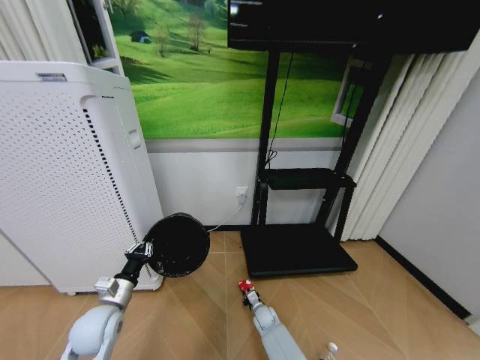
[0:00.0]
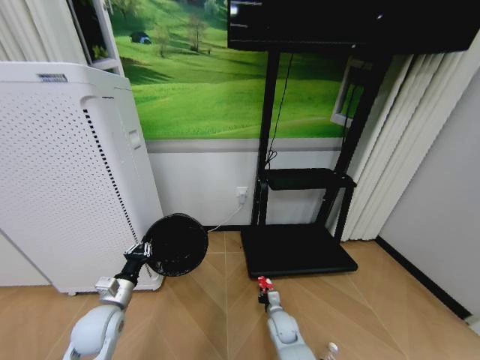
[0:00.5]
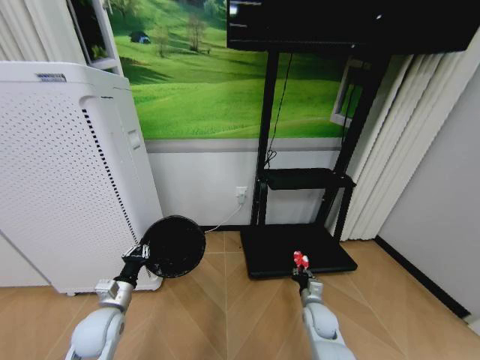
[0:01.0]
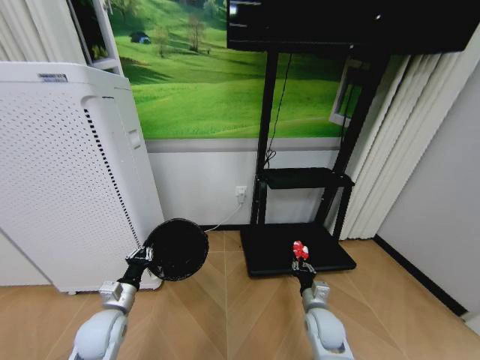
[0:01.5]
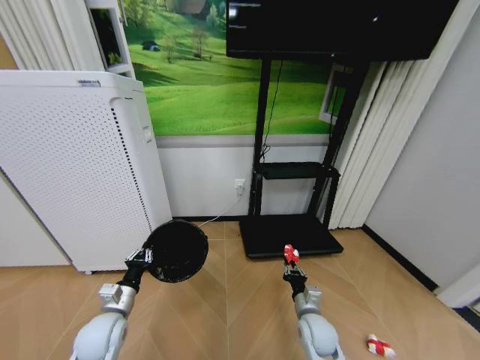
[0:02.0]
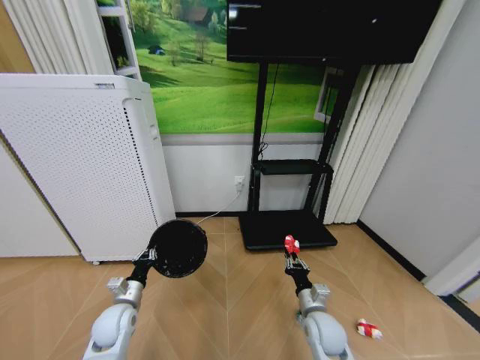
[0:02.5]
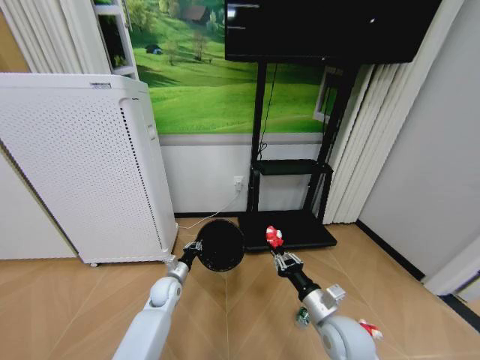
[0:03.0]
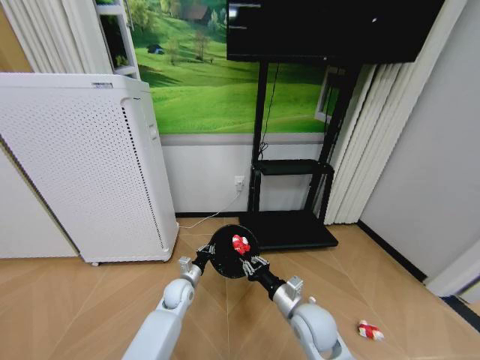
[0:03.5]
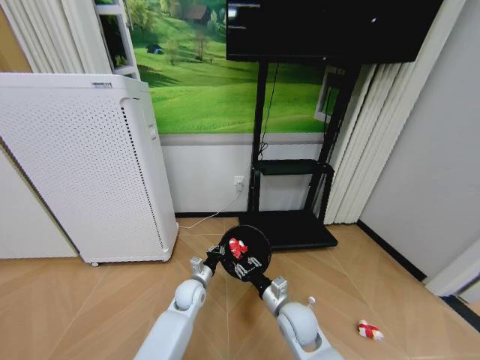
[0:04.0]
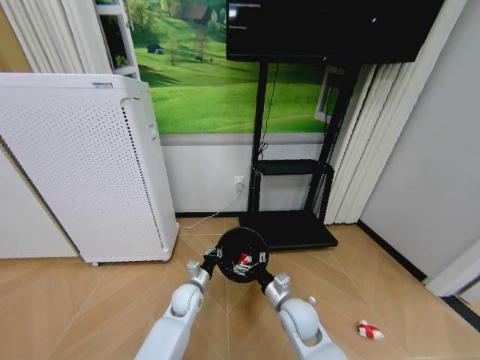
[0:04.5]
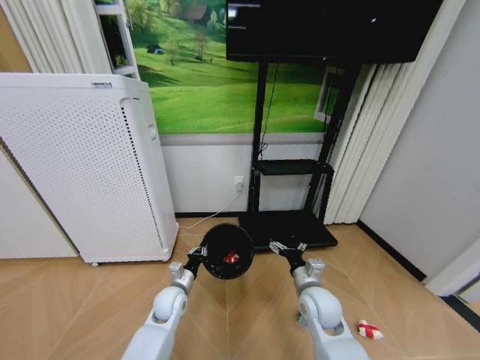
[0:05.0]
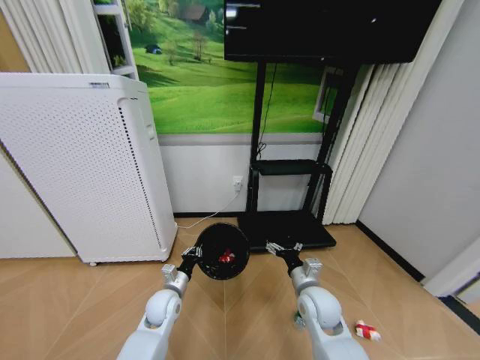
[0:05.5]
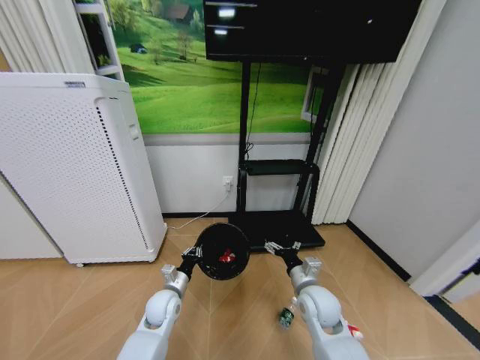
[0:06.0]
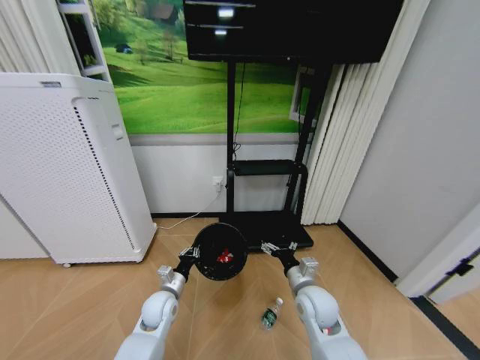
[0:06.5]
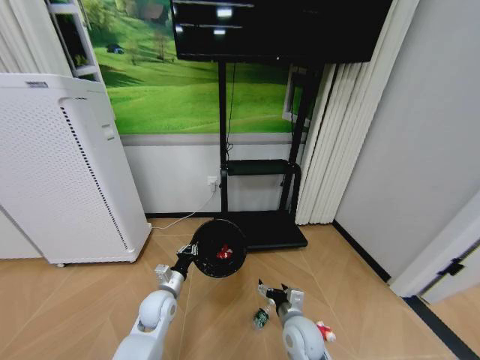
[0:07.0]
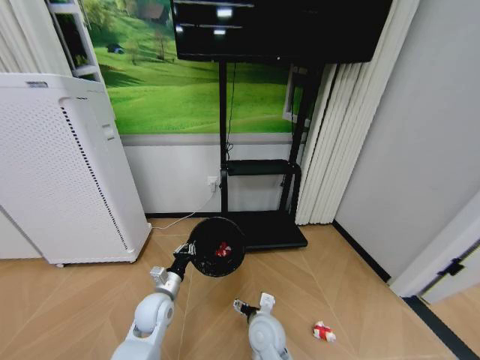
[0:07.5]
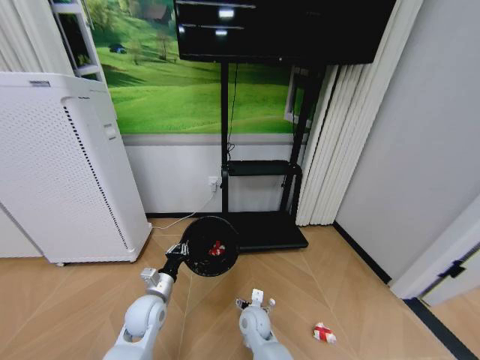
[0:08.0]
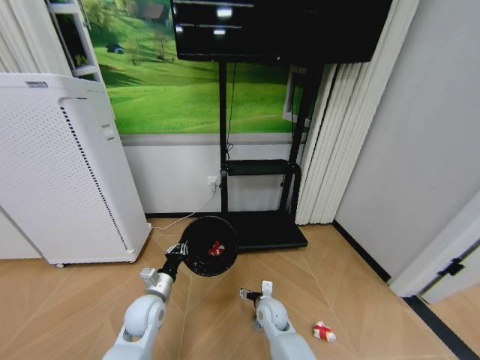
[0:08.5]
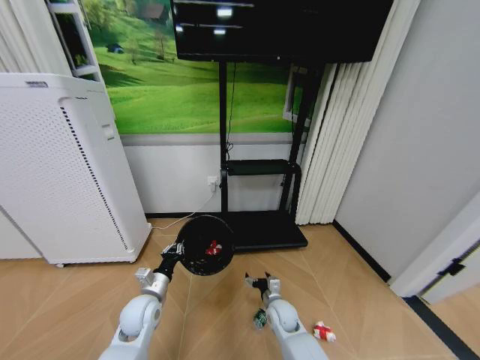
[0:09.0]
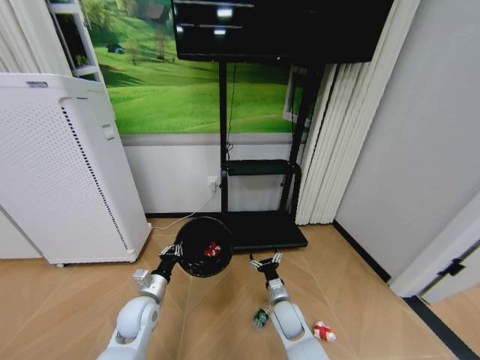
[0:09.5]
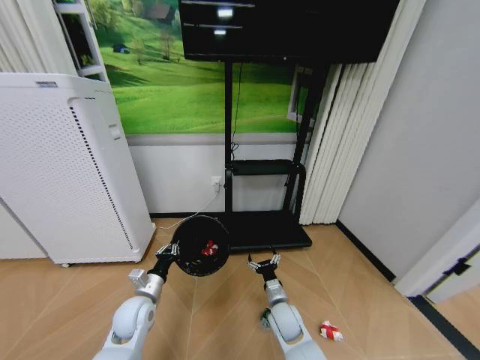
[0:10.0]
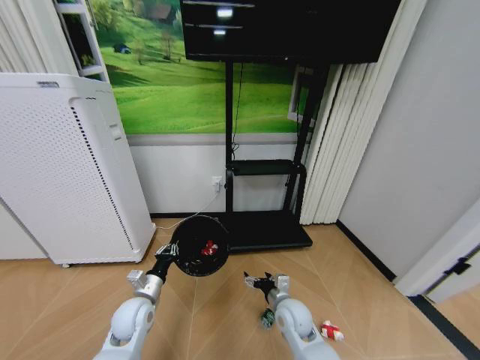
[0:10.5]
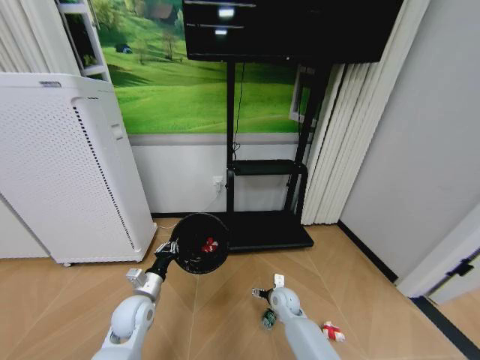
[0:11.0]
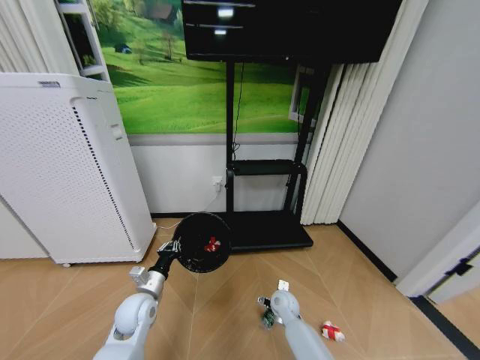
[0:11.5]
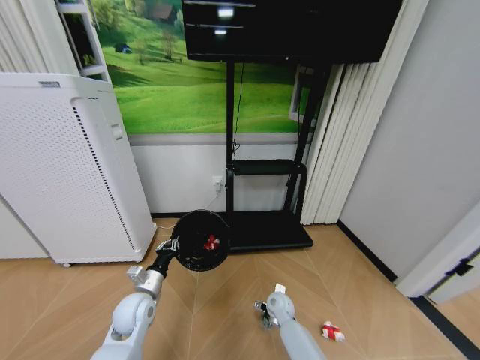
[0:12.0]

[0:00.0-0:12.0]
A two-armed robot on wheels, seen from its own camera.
Task of the whole recording: Pick up the trash bin and place the garbage on the floor into it.
0:00.0 to 0:02.0: The right gripper travels upward, backward and to the right by approximately 25 cm.
0:02.0 to 0:04.0: The left gripper moves to the right, forward and downward, some 25 cm. The right gripper travels to the left and upward by roughly 10 cm.
0:04.0 to 0:06.0: The left gripper heads to the left, covering approximately 5 cm. The right gripper shifts approximately 5 cm to the right and upward, and opens up.
0:06.0 to 0:08.0: The right gripper travels to the left and downward by some 20 cm, while the left gripper shifts by about 5 cm.
0:08.0 to 0:10.0: The right gripper shifts approximately 10 cm to the right.
0:10.0 to 0:12.0: The right gripper moves forward and downward, about 10 cm.

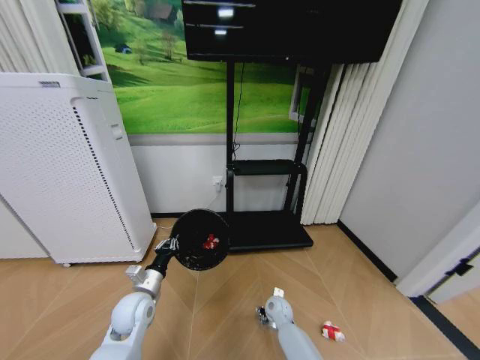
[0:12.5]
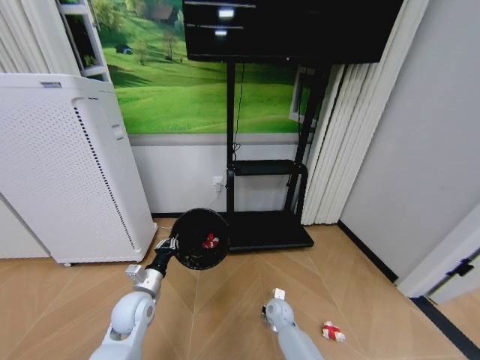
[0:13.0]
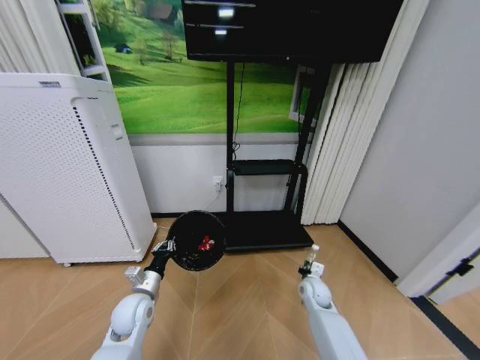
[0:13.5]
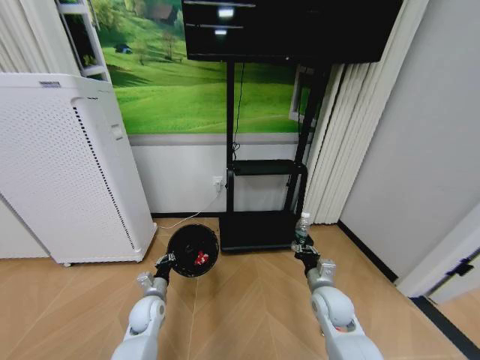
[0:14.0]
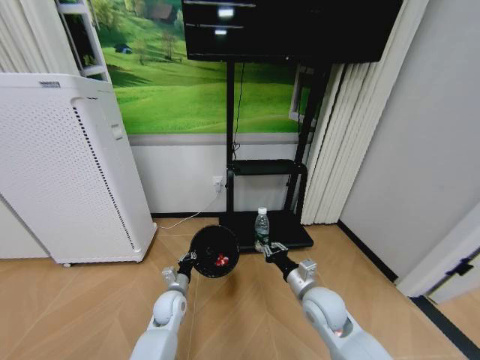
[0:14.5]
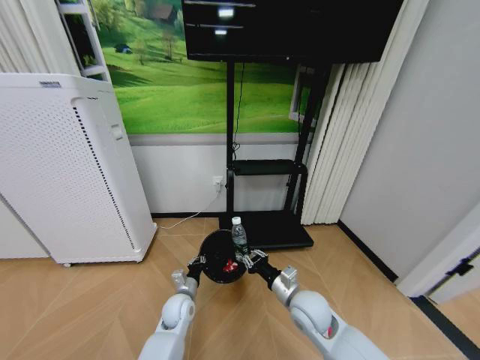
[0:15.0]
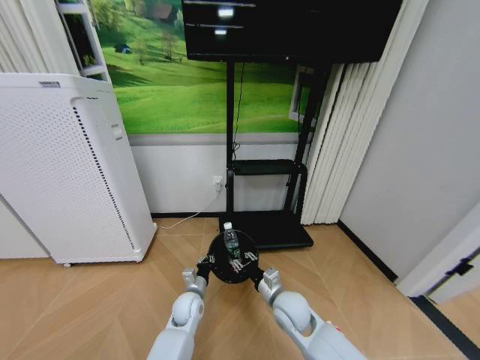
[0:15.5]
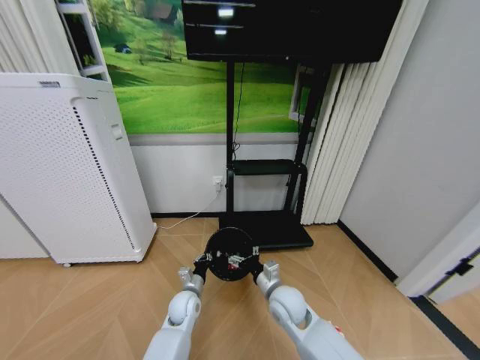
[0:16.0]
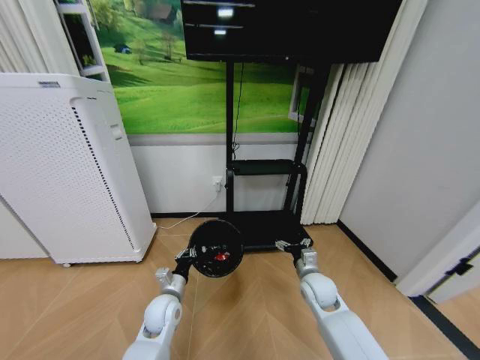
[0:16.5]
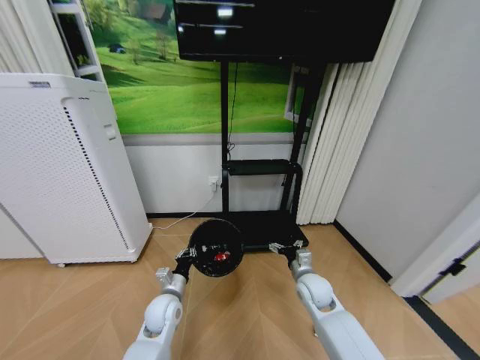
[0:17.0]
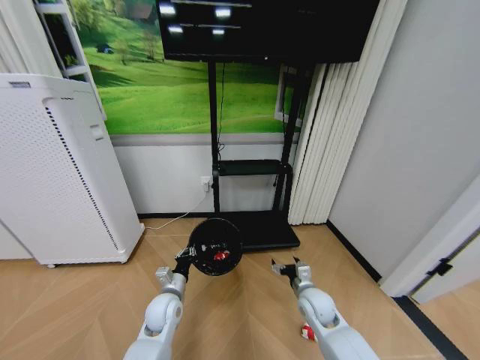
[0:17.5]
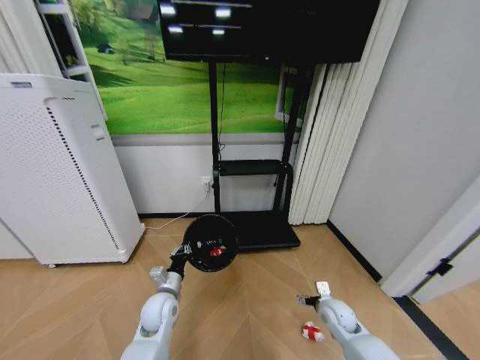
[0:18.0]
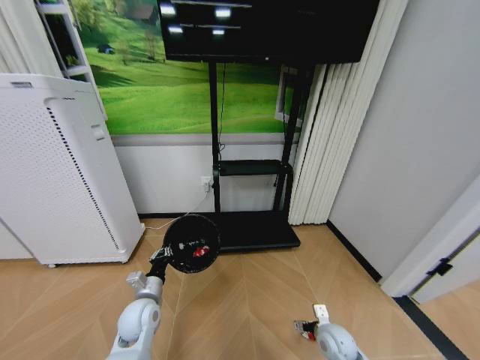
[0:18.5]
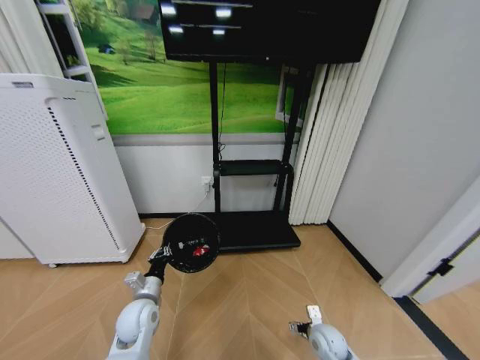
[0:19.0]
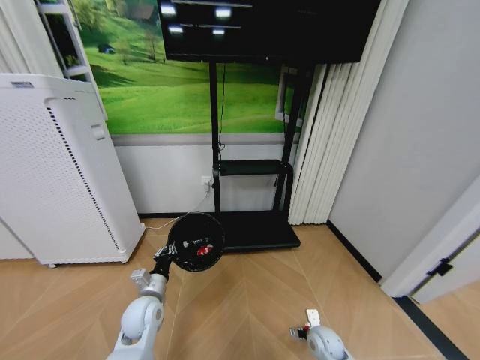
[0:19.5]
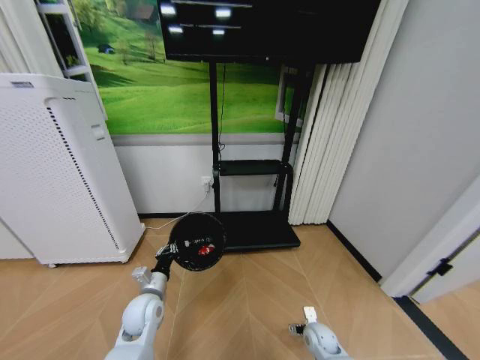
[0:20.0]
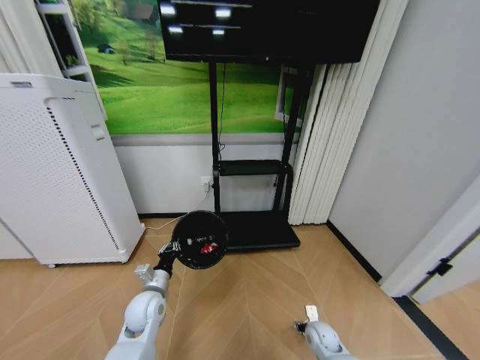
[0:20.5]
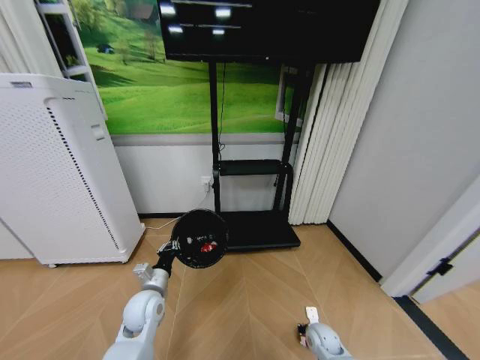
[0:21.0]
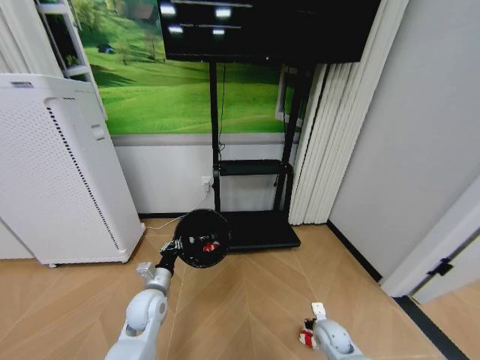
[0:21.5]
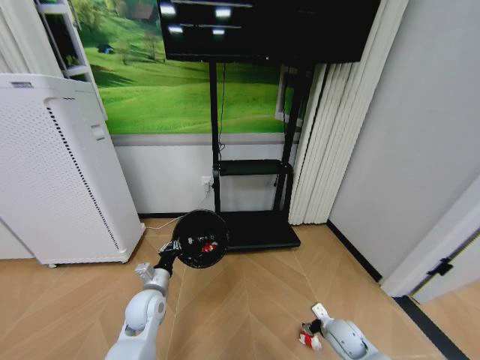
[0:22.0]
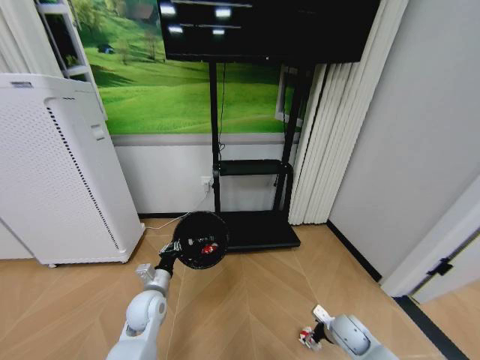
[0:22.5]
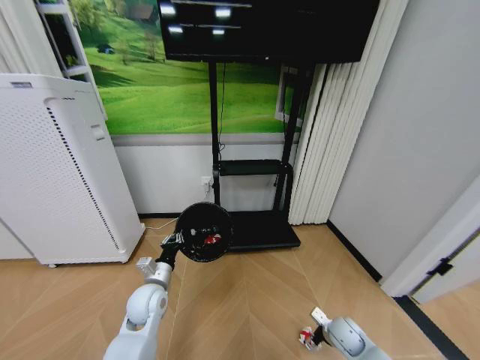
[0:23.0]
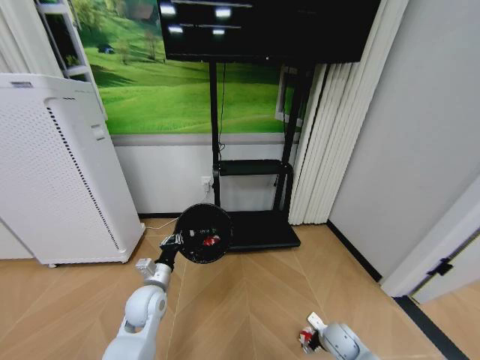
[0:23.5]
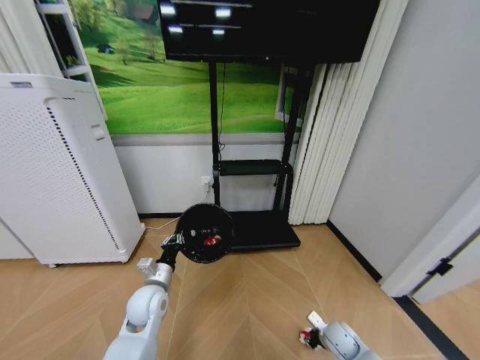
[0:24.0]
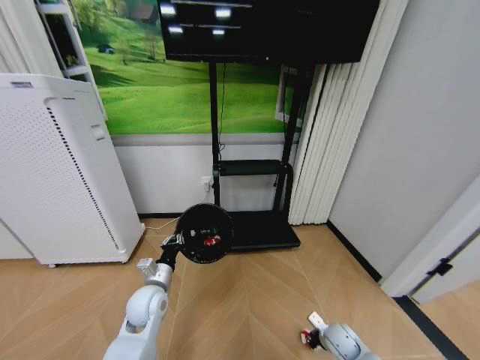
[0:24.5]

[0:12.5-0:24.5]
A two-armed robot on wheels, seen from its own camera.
Task of the whole recording: Pick up the trash bin and place the garbage on the floor into it.
0:12.5 to 0:14.5: The left gripper goes approximately 10 cm downward and to the right; the right gripper goes about 20 cm upward, and closes up.
0:14.5 to 0:16.5: The right gripper reaches some 10 cm to the left, then returns, and opens.
0:16.5 to 0:18.5: The right gripper goes some 20 cm downward, to the right and backward, while the left gripper is displaced to the left by roughly 5 cm.
0:18.5 to 0:20.5: The right gripper goes some 5 cm downward, and closes up.
0:20.5 to 0:22.5: The right gripper heads upward and to the right, covering some 10 cm, and opens up.
0:22.5 to 0:24.5: The right gripper closes.

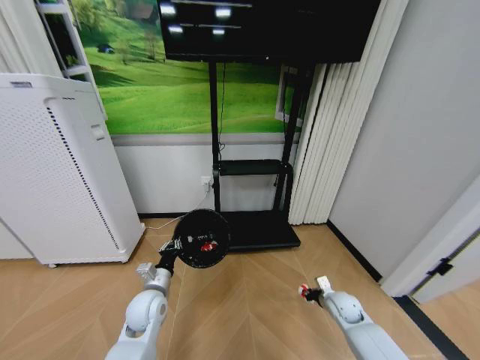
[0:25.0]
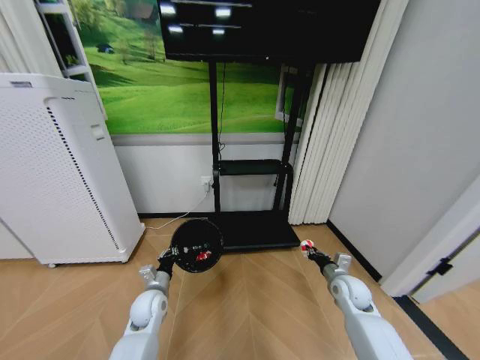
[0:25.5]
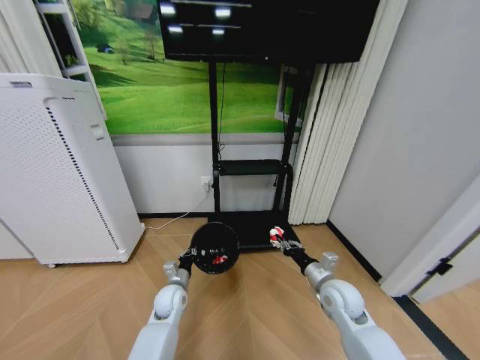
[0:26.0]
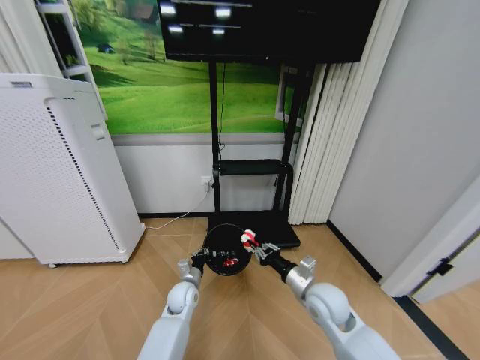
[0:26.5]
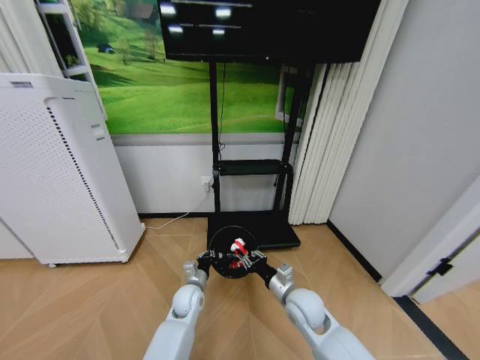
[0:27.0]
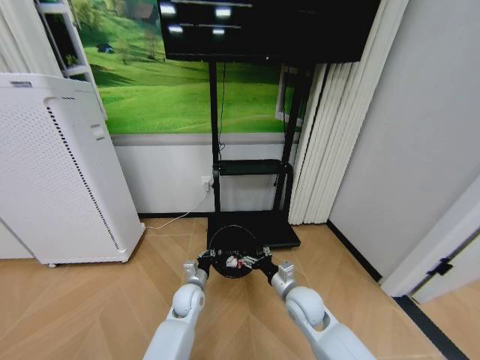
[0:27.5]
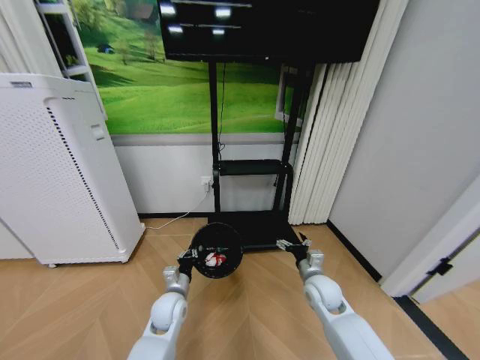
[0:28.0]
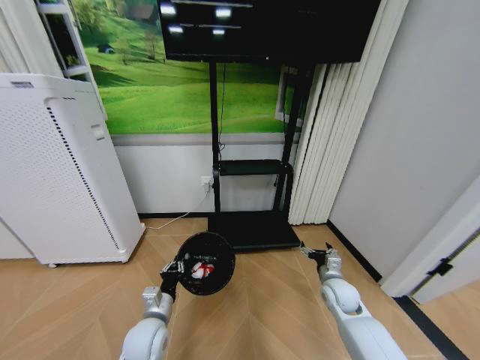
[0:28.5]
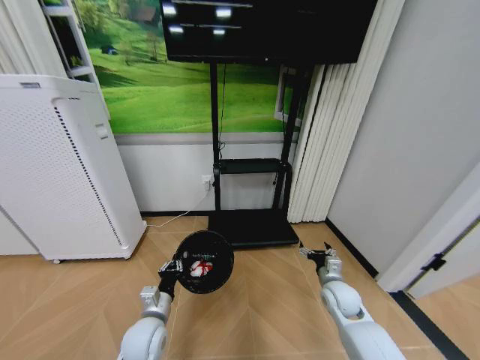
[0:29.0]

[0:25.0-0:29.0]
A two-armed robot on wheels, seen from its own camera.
Task of the whole recording: Pick up the trash bin and place the garbage on the floor into it.
0:25.0 to 0:27.0: The left gripper goes approximately 15 cm to the right, downward and forward, while the right gripper goes some 20 cm to the left and upward.
0:27.0 to 0:29.0: The left gripper is displaced backward, to the left and upward by about 15 cm; the right gripper heads to the right, covering approximately 15 cm, and opens.
